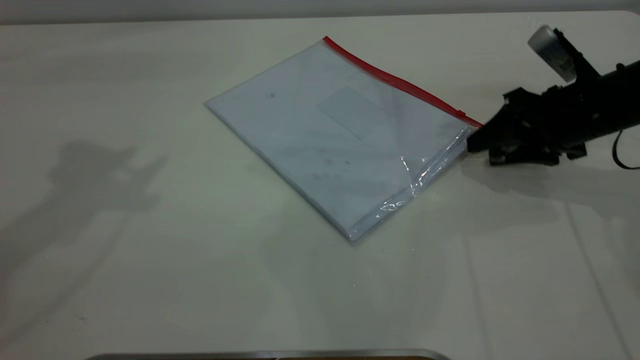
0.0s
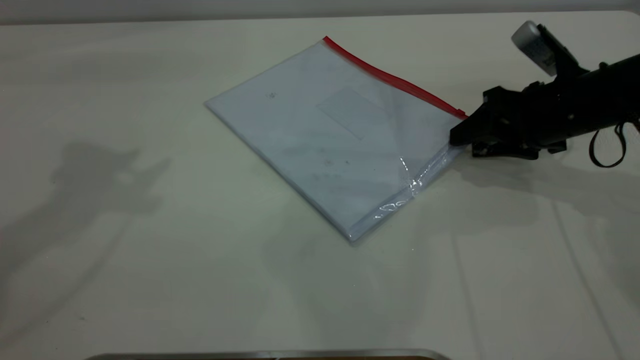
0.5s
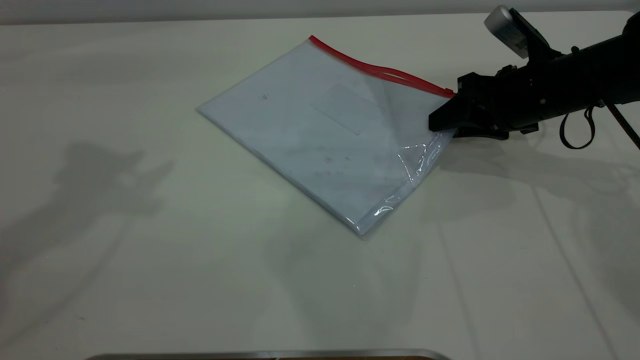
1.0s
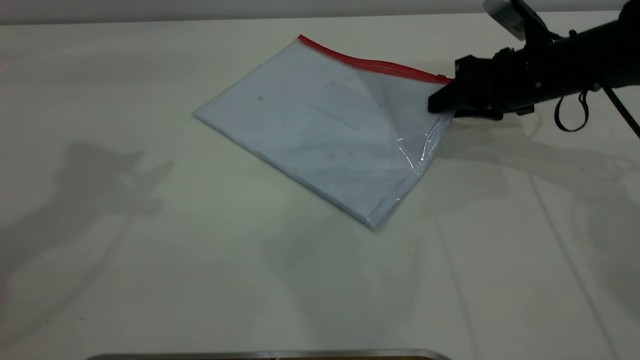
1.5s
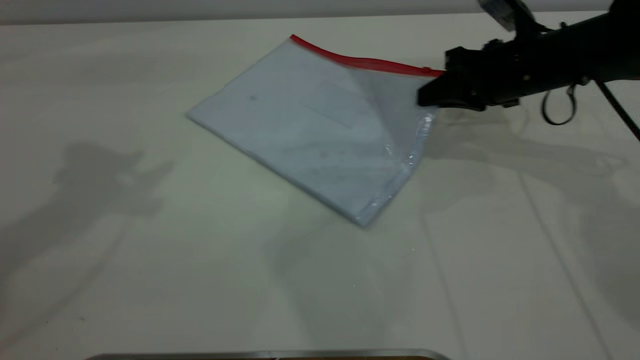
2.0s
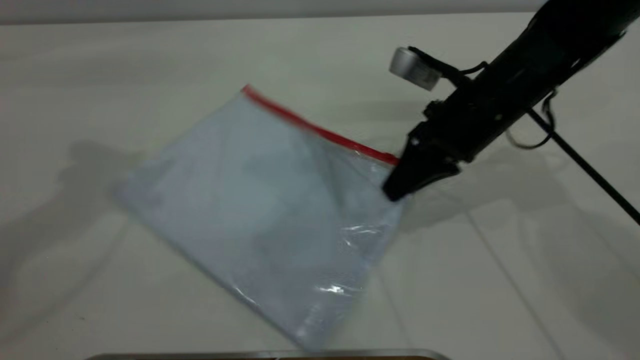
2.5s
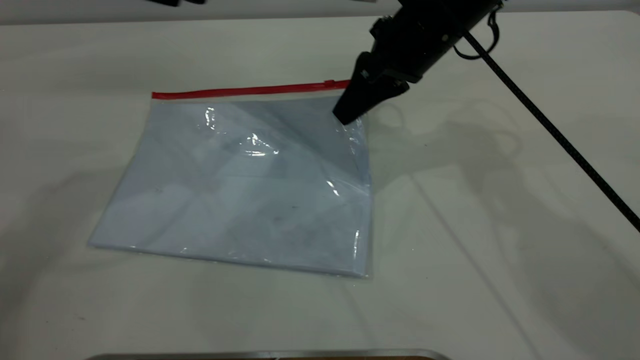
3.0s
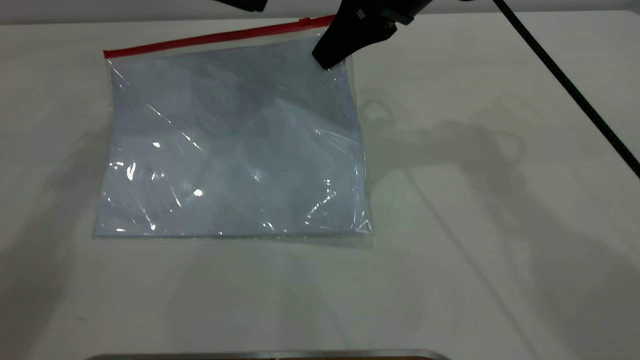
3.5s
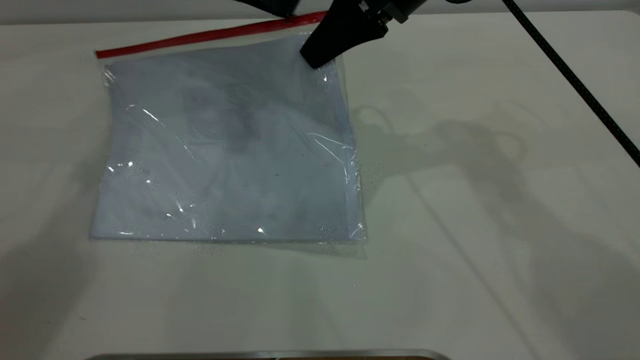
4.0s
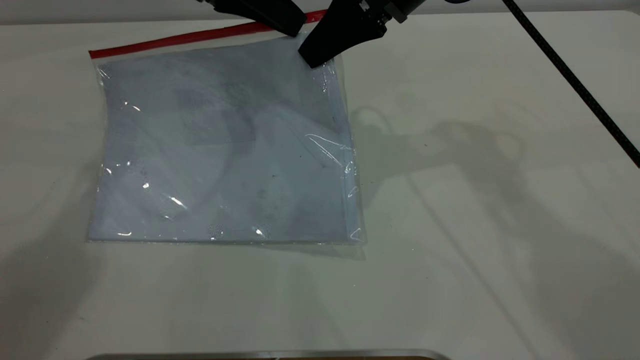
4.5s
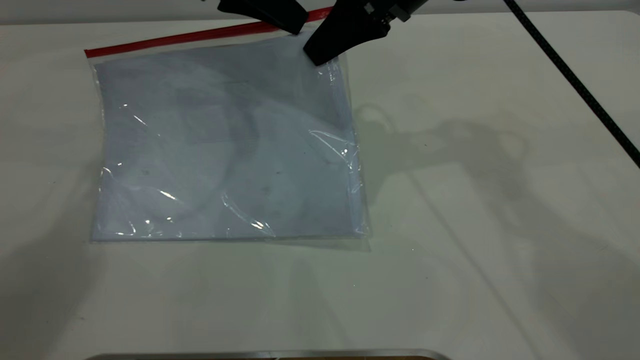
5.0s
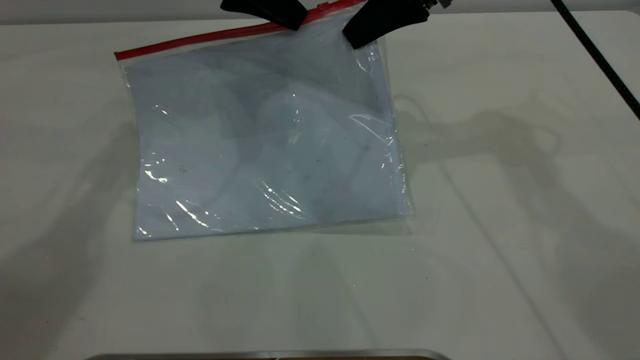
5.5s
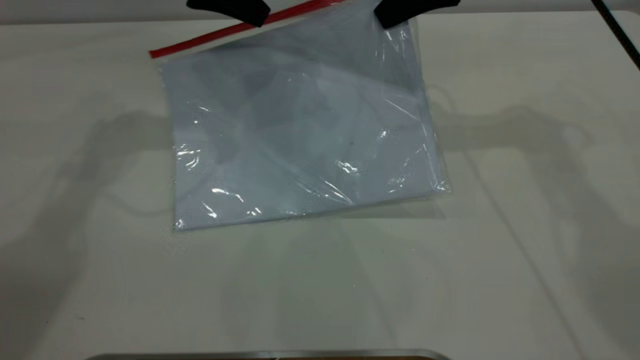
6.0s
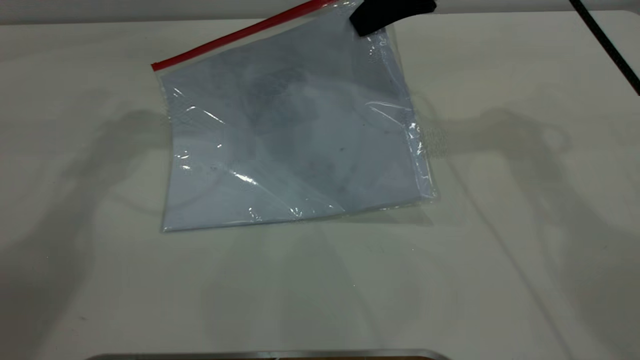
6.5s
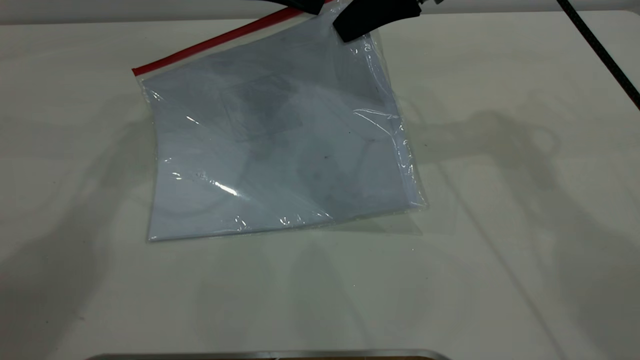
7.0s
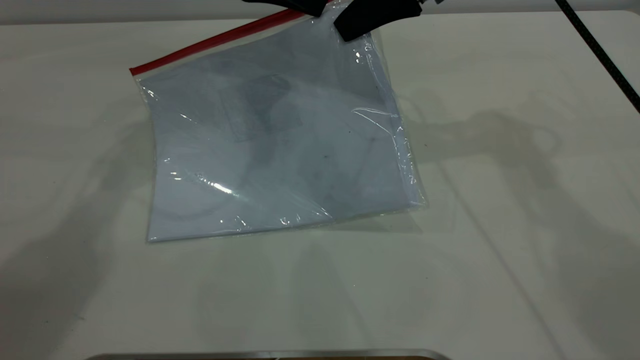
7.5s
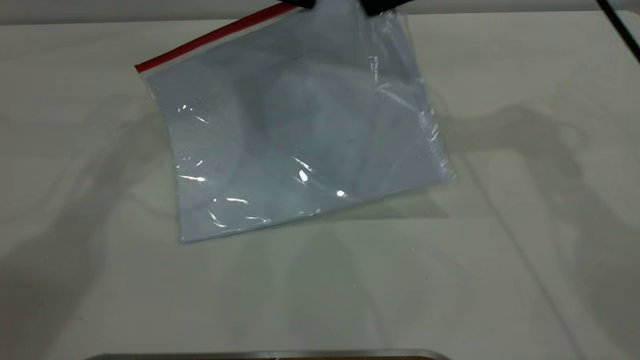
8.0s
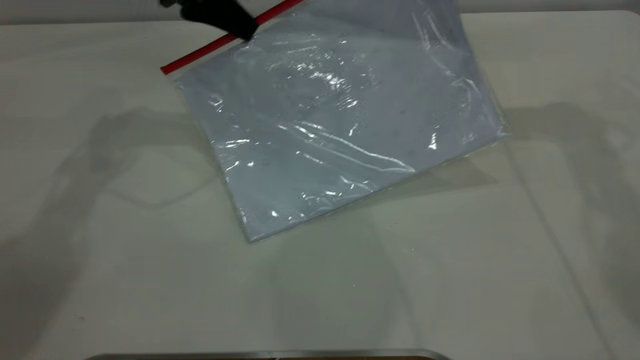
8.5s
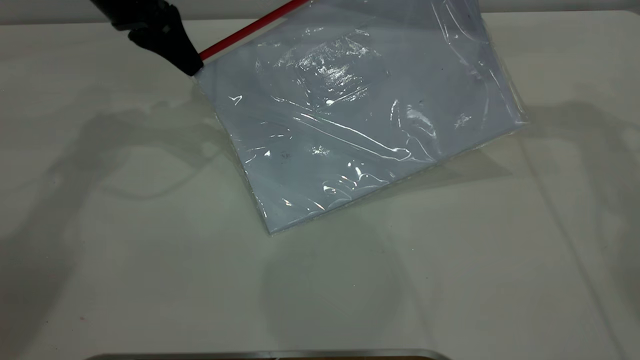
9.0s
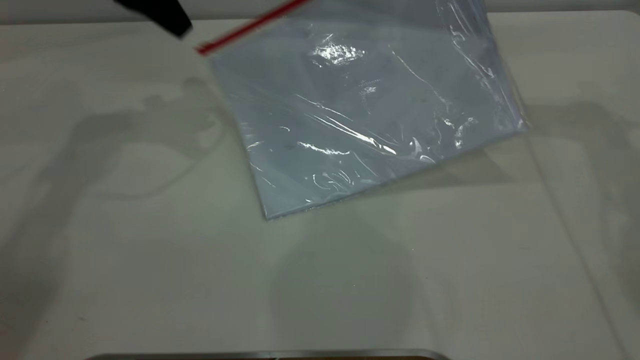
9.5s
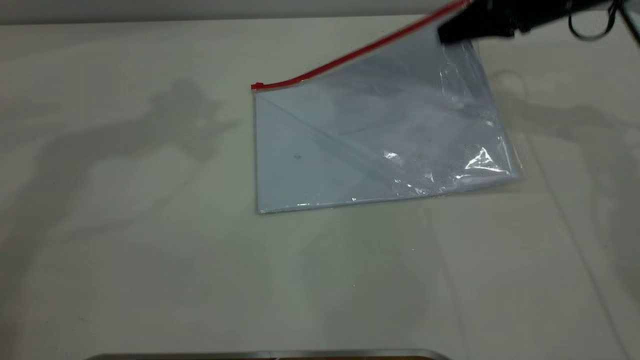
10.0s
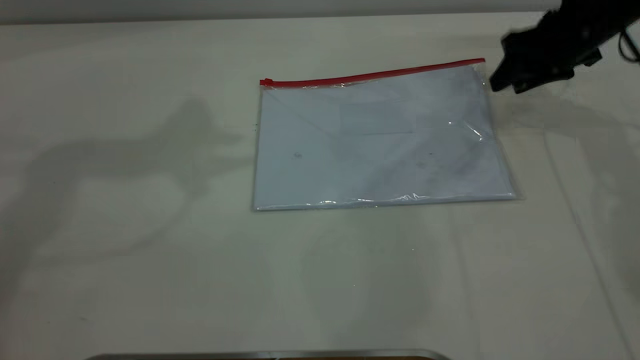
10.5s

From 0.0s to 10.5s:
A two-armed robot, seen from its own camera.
Step, from 0.0s to 3.0s: Pick up the transparent plastic bag with the right gripper.
Step, from 3.5s to 9.5s: Pulling up the zipper on the transparent plastic bag with the left gripper to close it.
From 0.0s to 2.0s: The right gripper moves to the left, about 5 cm, and closes up.
From 2.0s to 4.0s: The left gripper heads to the right, downward and forward, covering some 20 cm; the right gripper is displaced upward and to the left by some 20 cm.
From 4.0s to 6.5s: The left gripper closes, then opens again, while the right gripper is displaced to the right by some 5 cm.
From 6.5s to 8.5s: The left gripper moves approximately 5 cm, and closes. Meanwhile the right gripper goes approximately 10 cm to the right.
From 8.5s to 10.5s: The right gripper goes roughly 10 cm downward and to the right, and opens; the left gripper is displaced upward by about 20 cm, and opens.

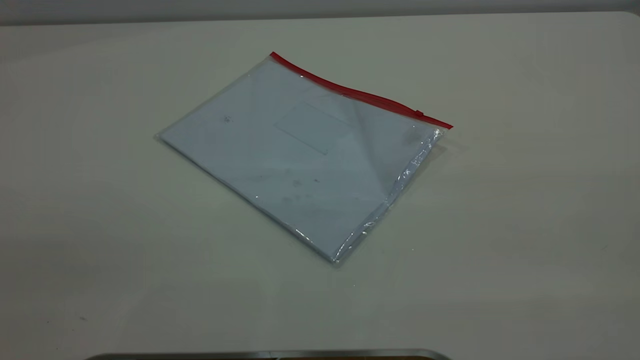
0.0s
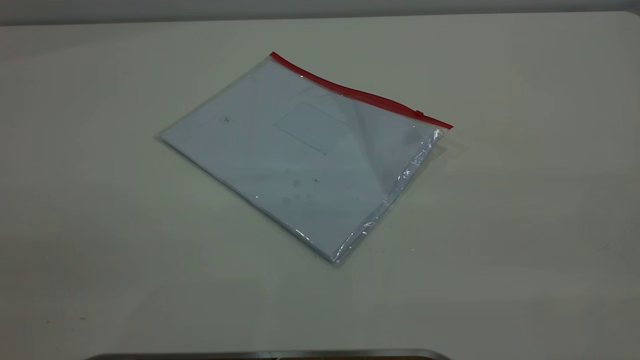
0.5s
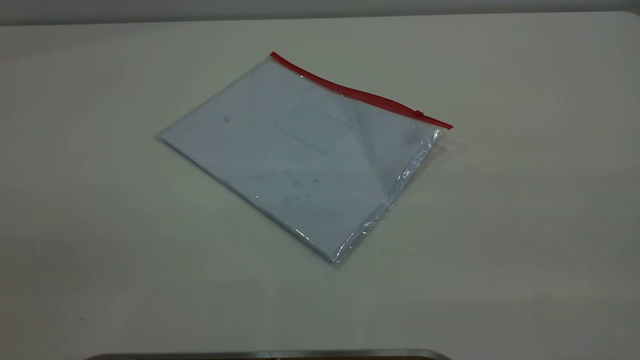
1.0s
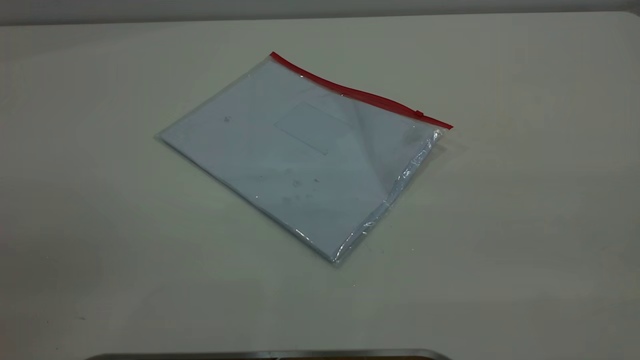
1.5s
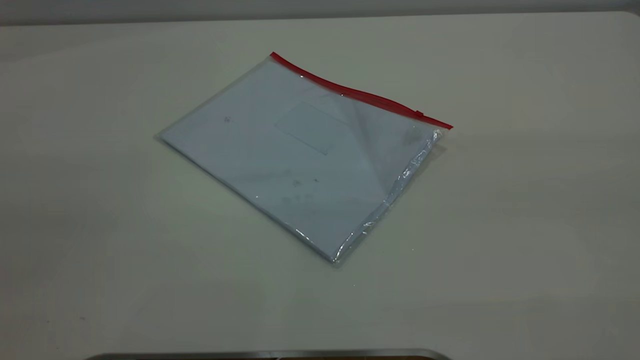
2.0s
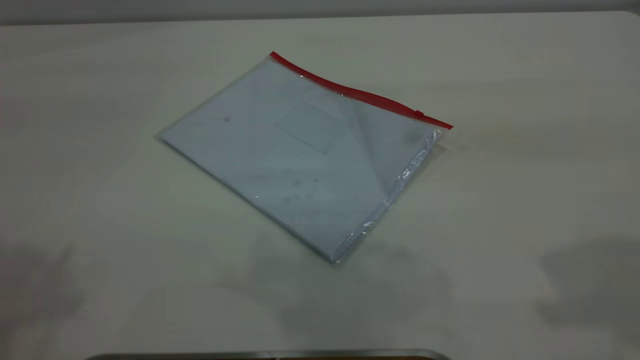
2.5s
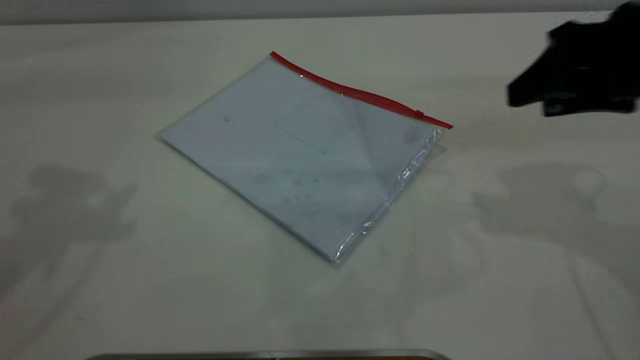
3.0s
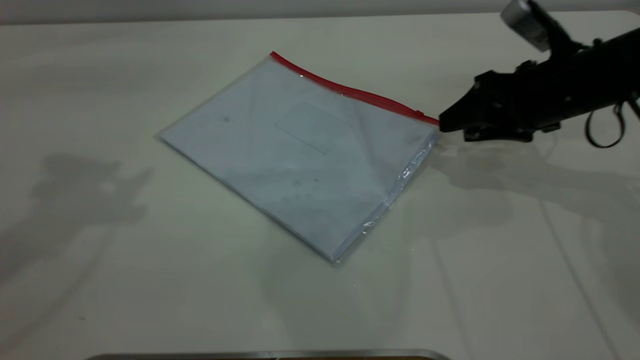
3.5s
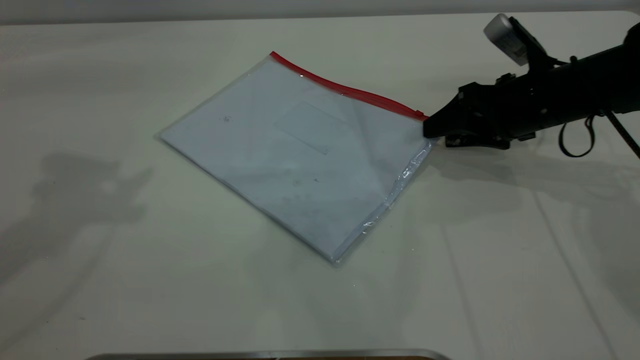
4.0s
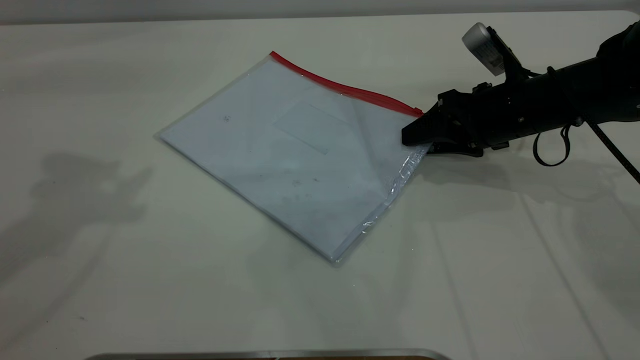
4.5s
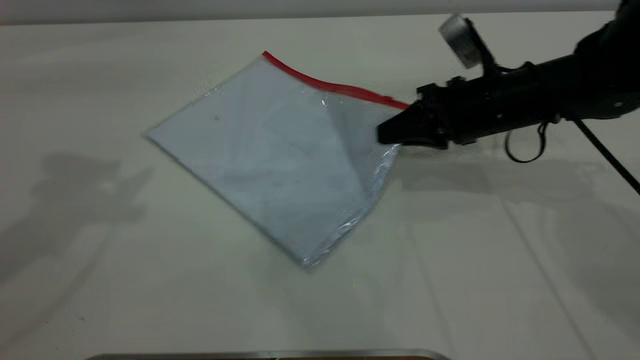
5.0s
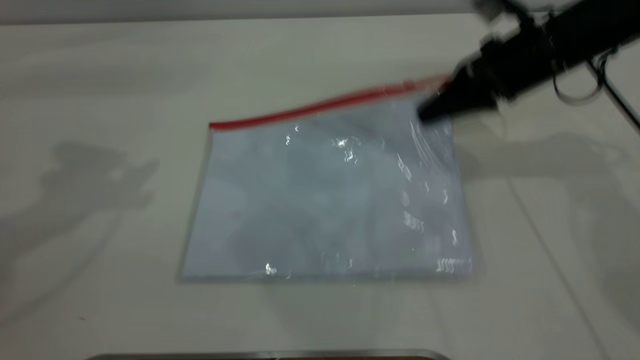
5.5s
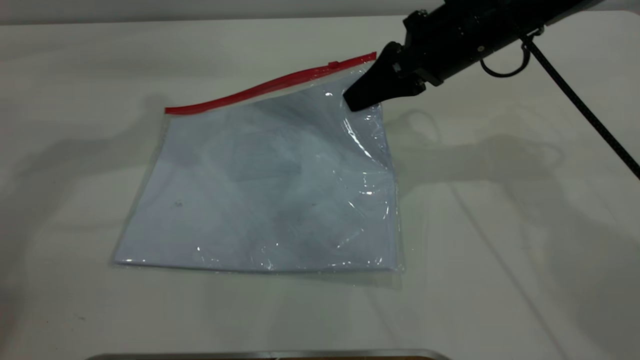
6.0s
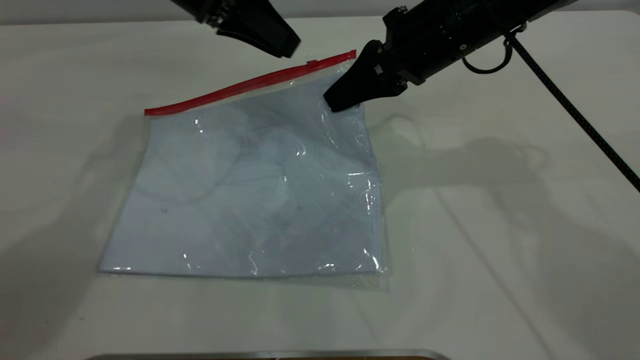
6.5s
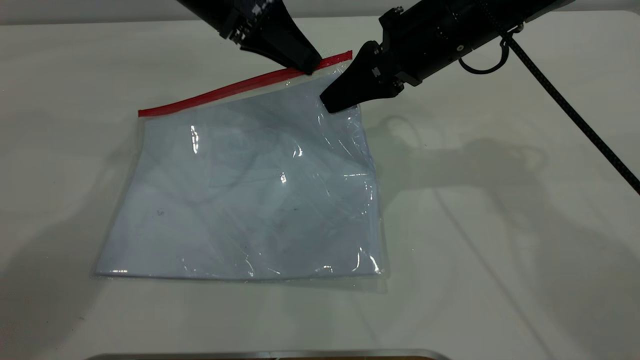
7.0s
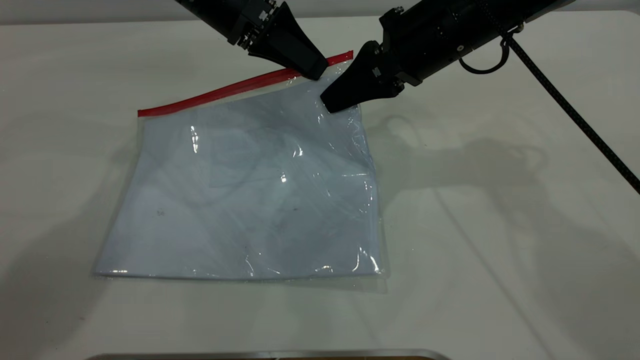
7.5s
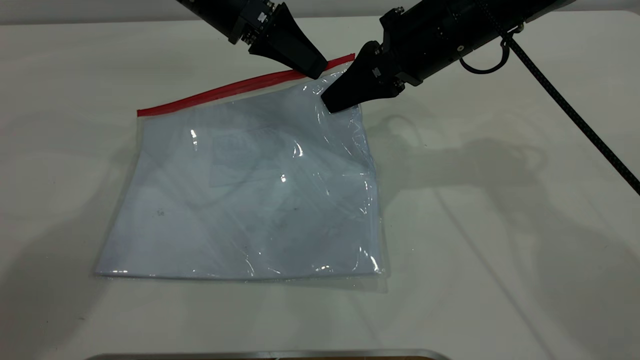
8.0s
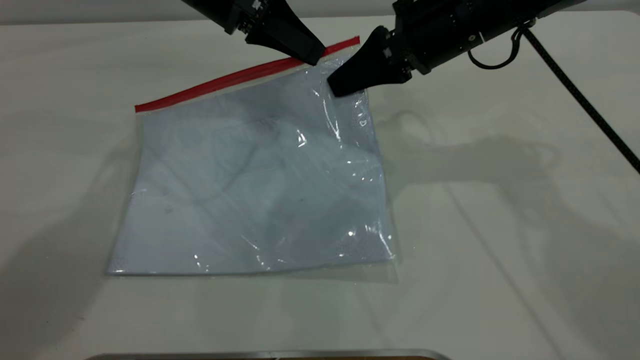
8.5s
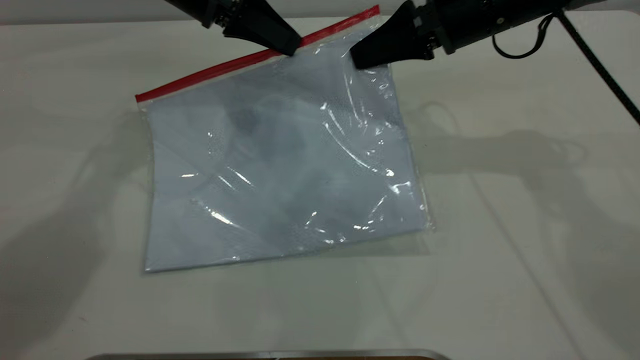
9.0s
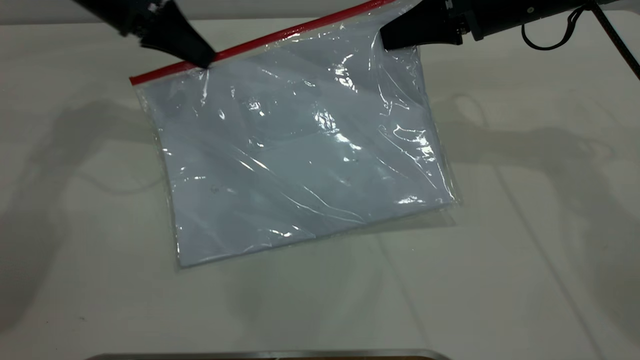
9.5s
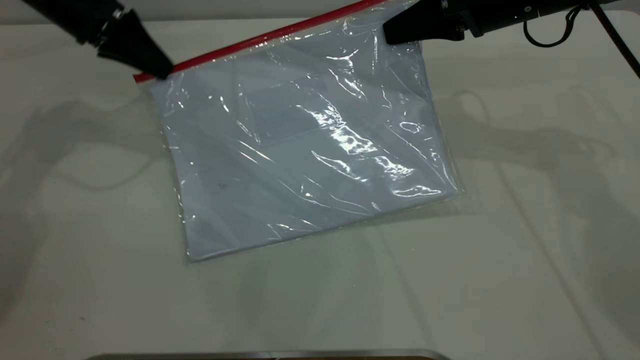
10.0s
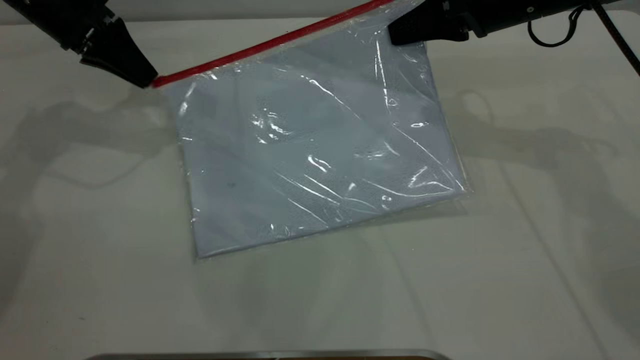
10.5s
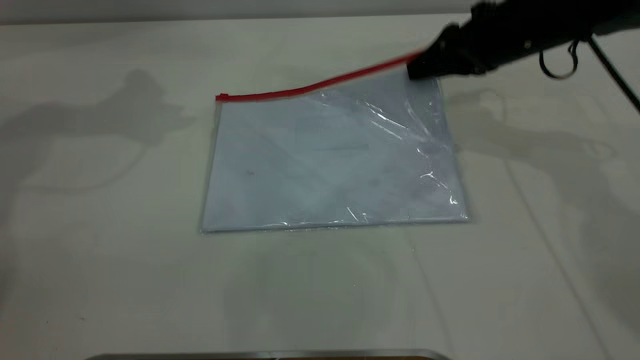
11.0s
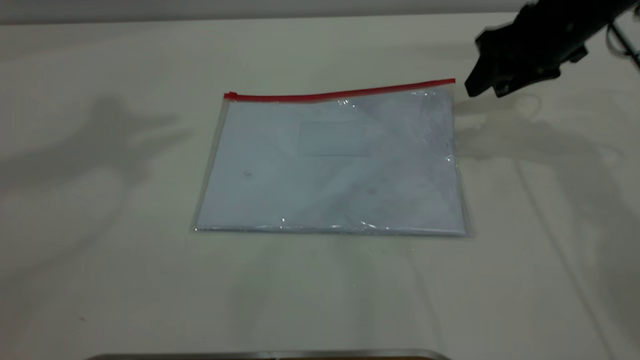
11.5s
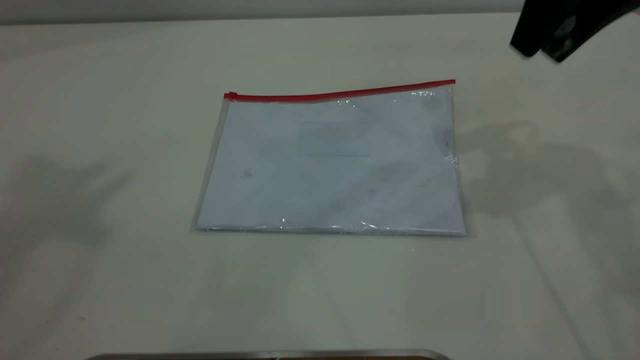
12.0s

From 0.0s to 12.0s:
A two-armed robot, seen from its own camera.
Step, from 0.0s to 5.5s: Pick up the transparent plastic bag with the right gripper.
Step, from 6.0s to 10.5s: Pulling up the zipper on the transparent plastic bag with the left gripper to close it.
From 2.0s to 4.0s: The right gripper is displaced forward and downward by some 50 cm.
From 4.0s to 6.0s: The left gripper shifts some 15 cm forward, downward and to the right, while the right gripper is displaced to the left and upward by about 15 cm, and closes.
From 6.0s to 8.0s: The left gripper goes roughly 15 cm to the right and downward, and closes its fingers.
From 8.0s to 10.0s: The left gripper shifts roughly 15 cm to the left. Meanwhile the right gripper shifts roughly 10 cm to the right.
From 10.0s to 12.0s: The right gripper goes approximately 15 cm upward and backward, and opens. Meanwhile the left gripper moves upward and backward, approximately 50 cm, and opens up.
